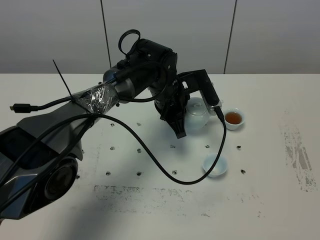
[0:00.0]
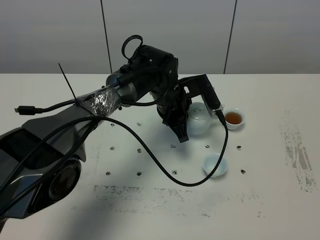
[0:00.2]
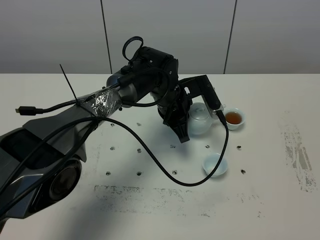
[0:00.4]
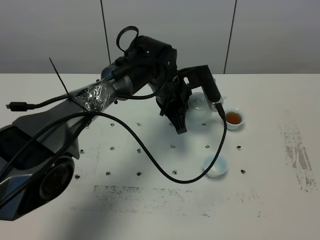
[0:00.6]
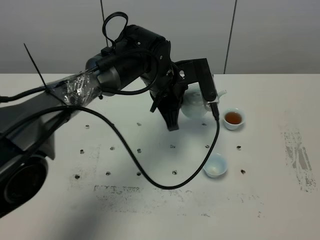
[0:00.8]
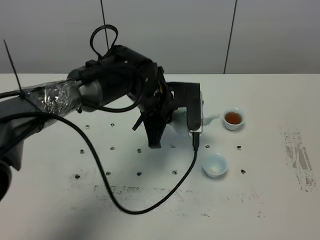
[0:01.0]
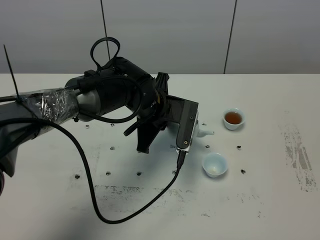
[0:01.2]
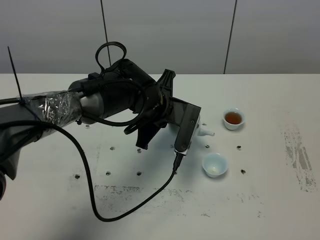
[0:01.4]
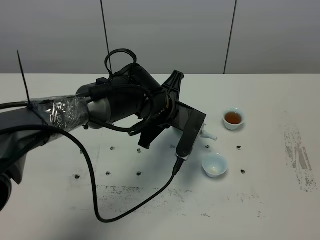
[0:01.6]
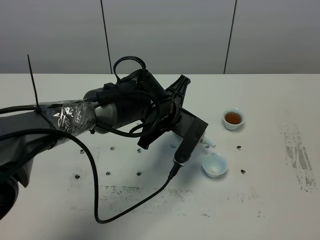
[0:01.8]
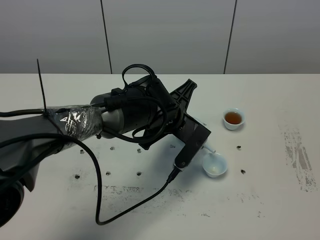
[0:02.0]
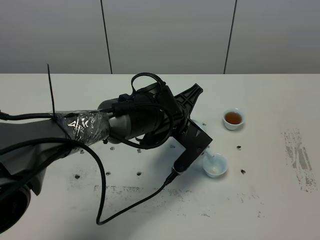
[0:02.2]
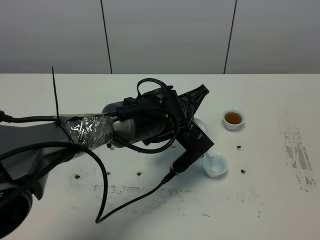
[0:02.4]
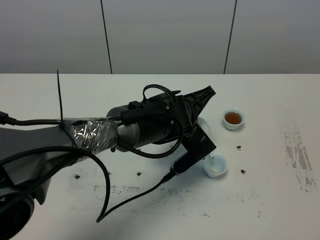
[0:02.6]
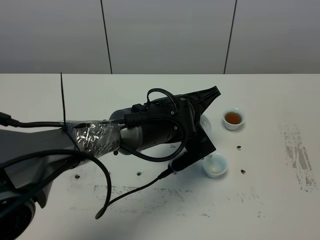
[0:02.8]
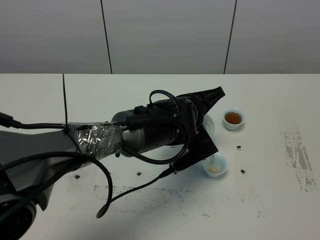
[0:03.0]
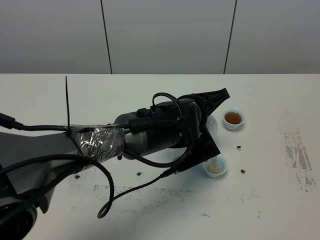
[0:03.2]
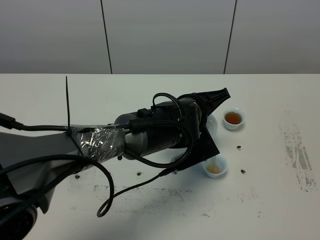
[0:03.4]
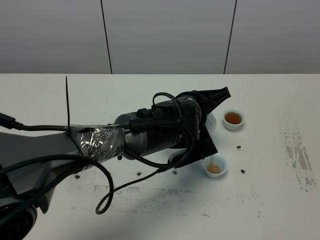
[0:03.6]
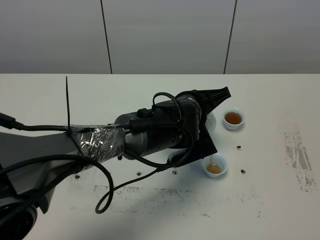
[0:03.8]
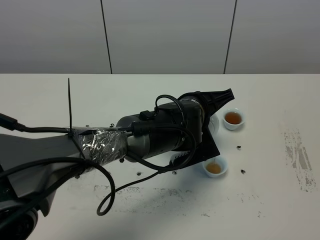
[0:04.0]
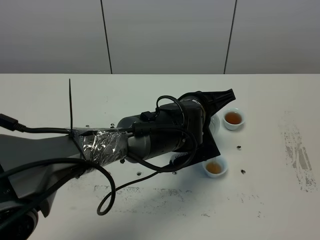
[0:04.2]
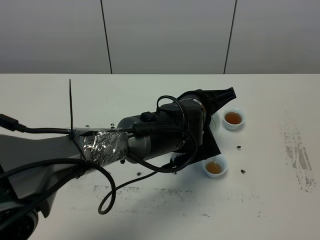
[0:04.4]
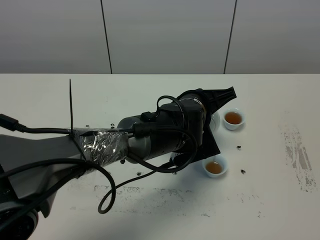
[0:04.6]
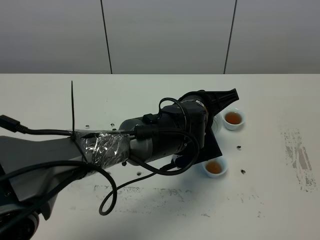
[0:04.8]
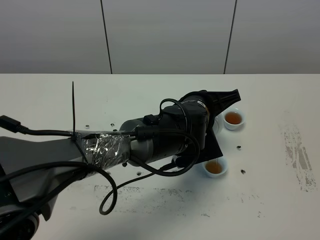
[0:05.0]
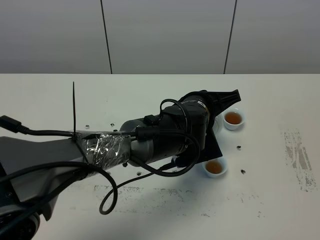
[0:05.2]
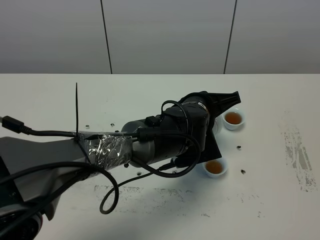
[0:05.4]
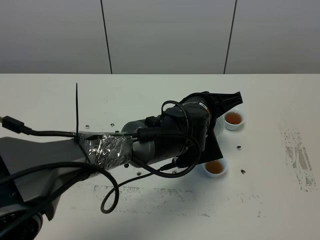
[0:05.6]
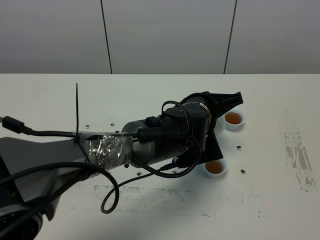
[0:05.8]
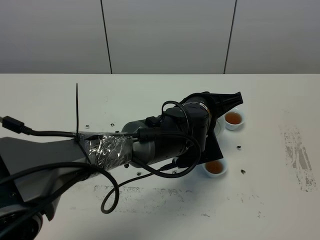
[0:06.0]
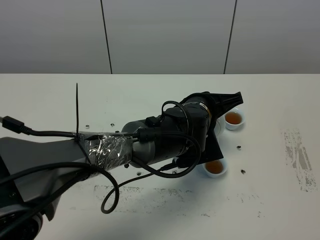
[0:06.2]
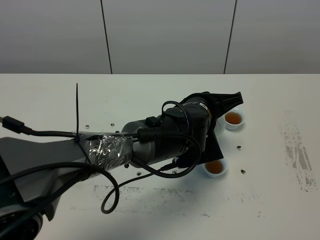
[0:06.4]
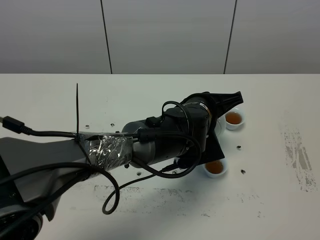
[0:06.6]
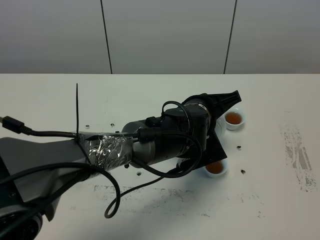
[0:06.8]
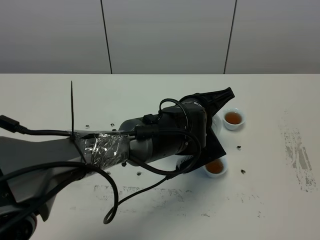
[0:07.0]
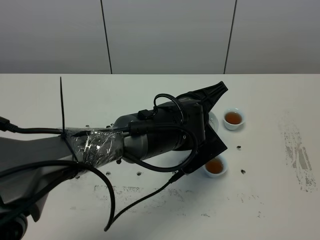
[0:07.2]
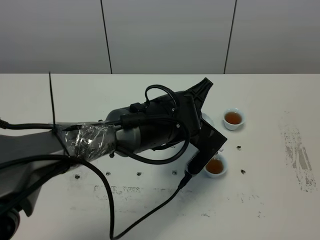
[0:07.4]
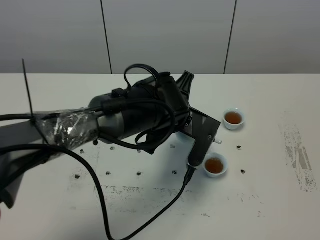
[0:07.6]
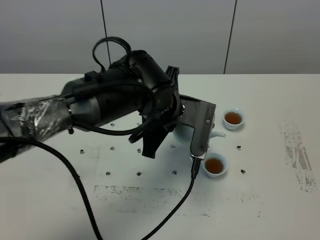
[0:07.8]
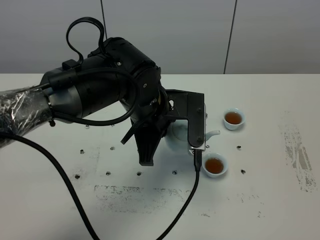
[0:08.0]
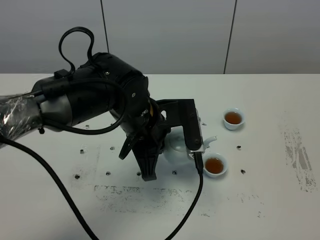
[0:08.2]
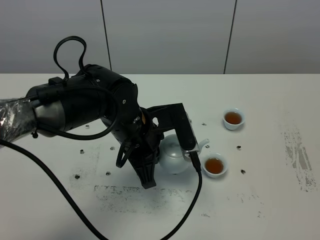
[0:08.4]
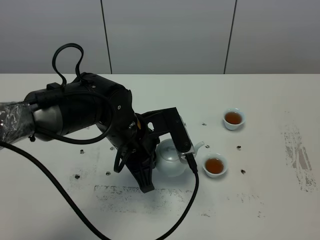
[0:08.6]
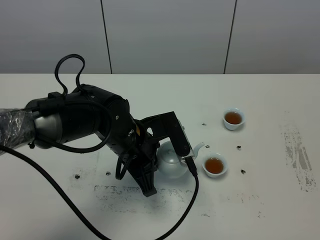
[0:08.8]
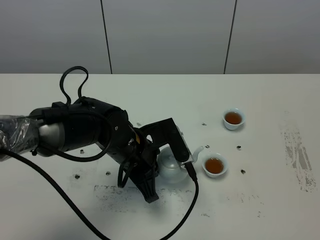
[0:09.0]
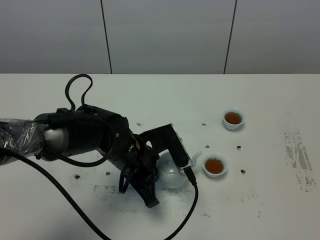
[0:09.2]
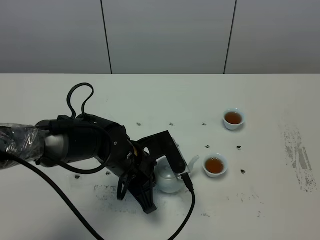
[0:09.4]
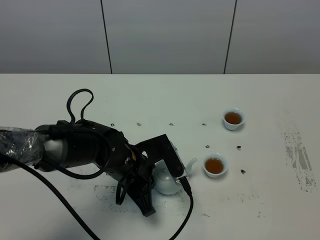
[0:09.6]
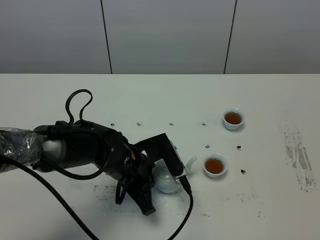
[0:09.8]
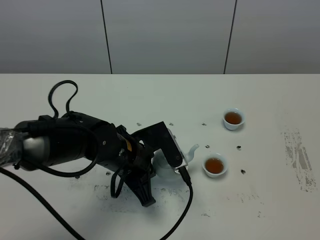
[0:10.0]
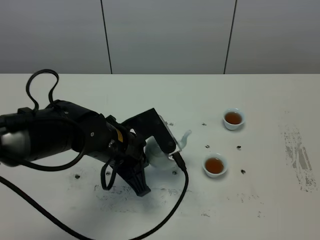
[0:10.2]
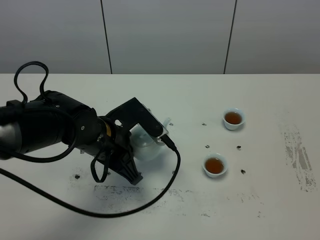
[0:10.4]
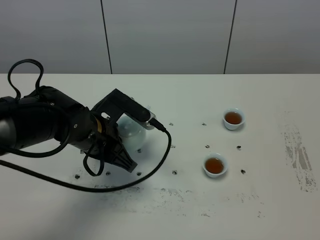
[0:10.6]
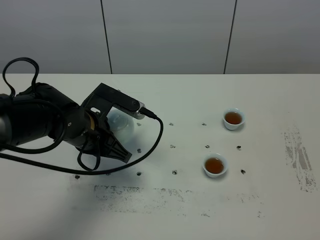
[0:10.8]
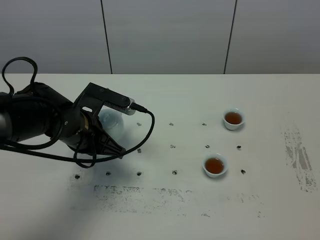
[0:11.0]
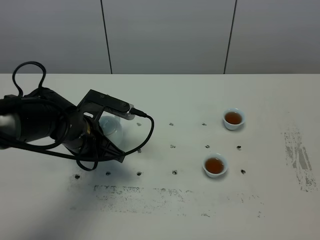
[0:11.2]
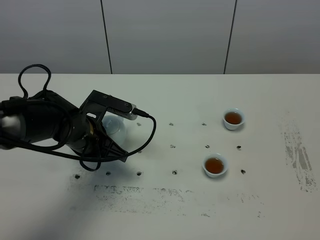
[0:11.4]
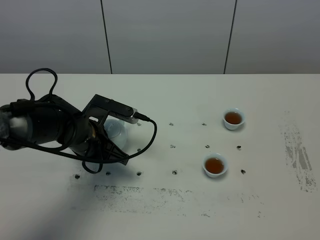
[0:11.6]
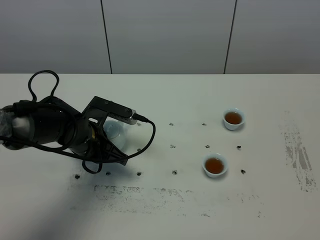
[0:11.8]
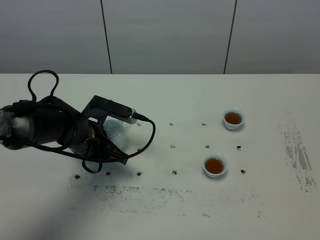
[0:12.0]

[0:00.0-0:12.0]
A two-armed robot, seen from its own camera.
Task of the whole recording: grasp the blue porcelain teapot and pour the tea into the two blue porcelain teacups one by one, put the blue porcelain teapot back in its original place.
Step, 0:00.0 to 0:07.4: Pour tea into the teacup with the left gripper.
0:00.0 to 0:01.6: The left gripper is displaced backward by approximately 5 cm.
0:01.6 to 0:03.0: The left gripper travels to the right by approximately 5 cm.
0:03.0 to 0:04.4: The grippers move only a little.
0:04.4 to 0:06.0: Both grippers stay about where they are.
0:06.0 to 0:07.6: The left gripper is displaced to the left by roughly 5 cm.
0:07.6 to 0:09.0: The left gripper goes approximately 10 cm to the left and downward.
0:09.0 to 0:10.4: The left gripper shifts by roughly 5 cm.
0:10.4 to 0:12.0: The left gripper travels downward by approximately 5 cm.

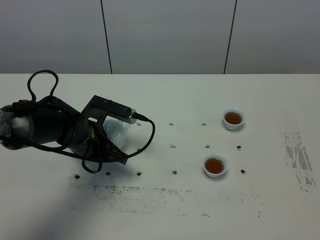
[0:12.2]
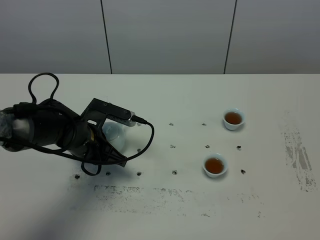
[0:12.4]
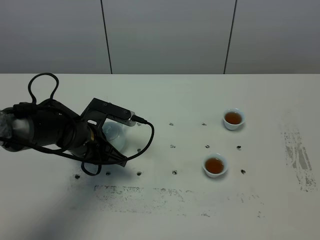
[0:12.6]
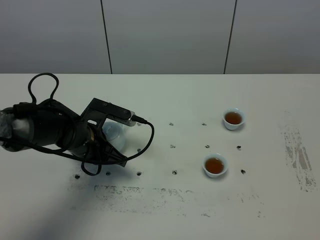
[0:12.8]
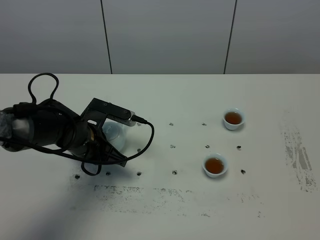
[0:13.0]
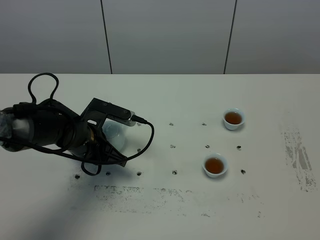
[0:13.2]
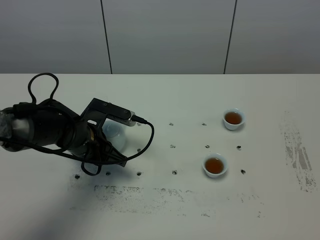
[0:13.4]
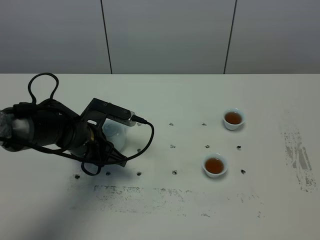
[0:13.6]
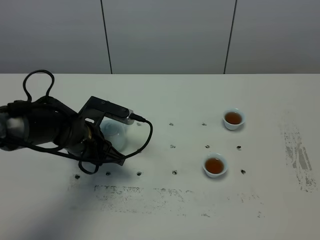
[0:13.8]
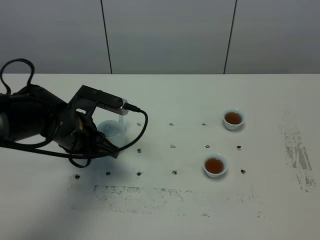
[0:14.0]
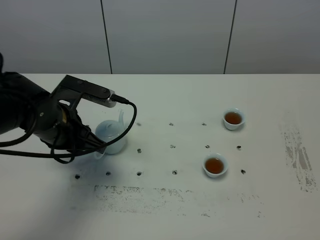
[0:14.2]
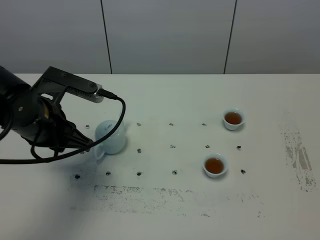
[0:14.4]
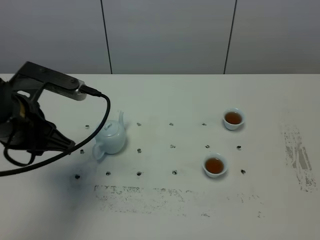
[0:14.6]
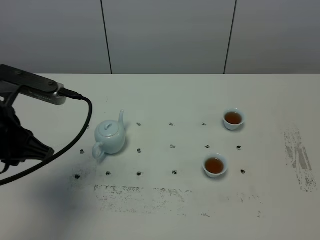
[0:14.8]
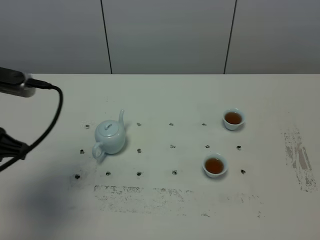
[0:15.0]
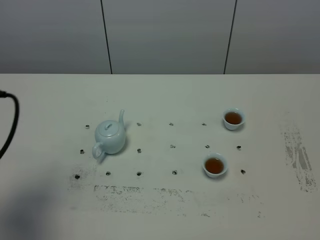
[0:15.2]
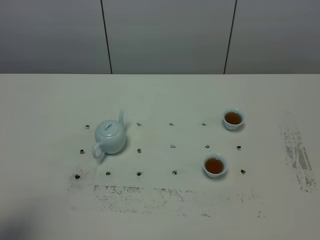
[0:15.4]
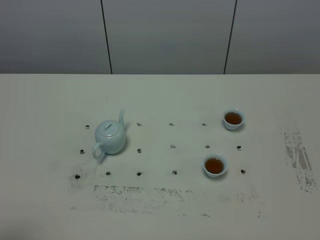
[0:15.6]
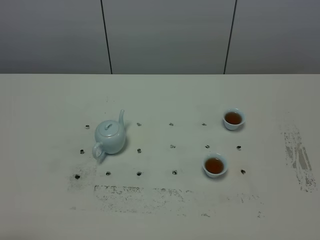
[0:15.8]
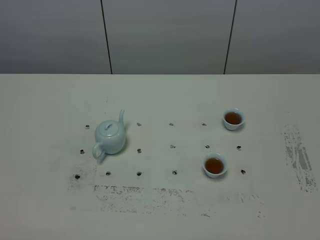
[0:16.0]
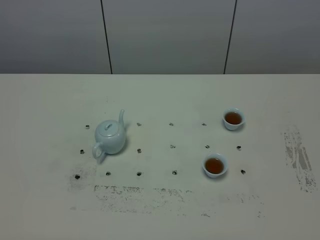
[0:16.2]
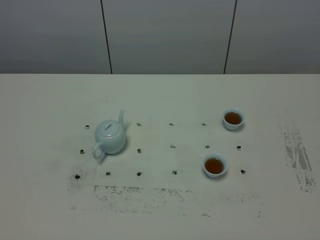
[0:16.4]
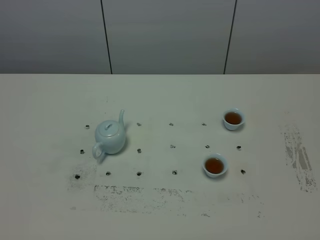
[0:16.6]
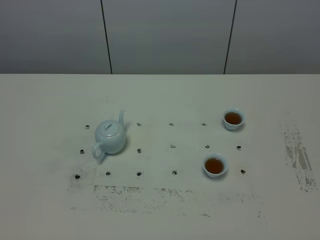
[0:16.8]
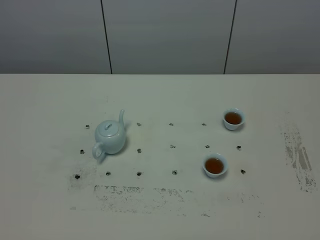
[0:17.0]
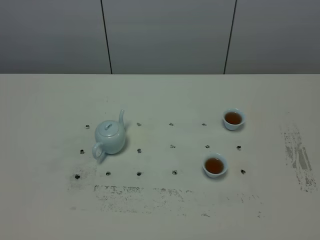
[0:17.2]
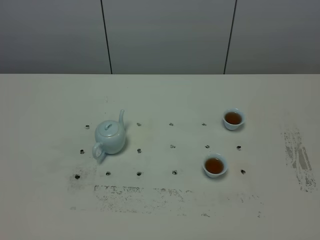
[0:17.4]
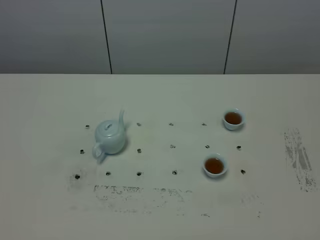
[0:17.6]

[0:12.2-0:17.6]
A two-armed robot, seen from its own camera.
Task of the whole recording: grasp the blue porcelain teapot and pour the tea into the two blue porcelain teacups one by one, put the blue porcelain teapot back in its original place.
0:12.2 to 0:13.6: The left gripper opens.
0:13.6 to 0:15.0: The left gripper shifts about 25 cm upward, backward and to the left.
0:15.0 to 0:16.2: The left gripper shifts approximately 20 cm backward.

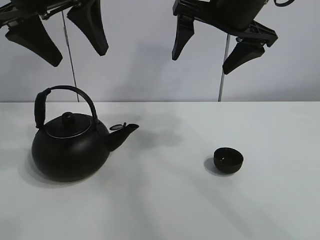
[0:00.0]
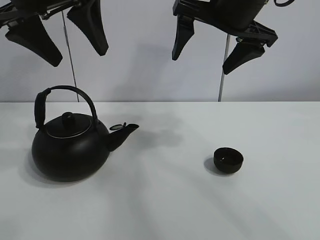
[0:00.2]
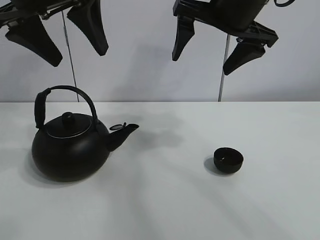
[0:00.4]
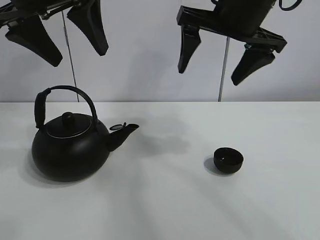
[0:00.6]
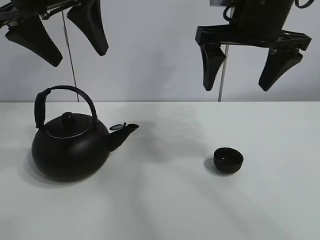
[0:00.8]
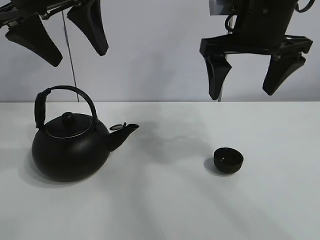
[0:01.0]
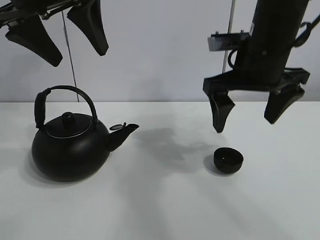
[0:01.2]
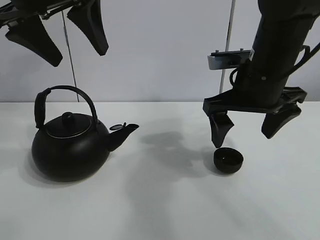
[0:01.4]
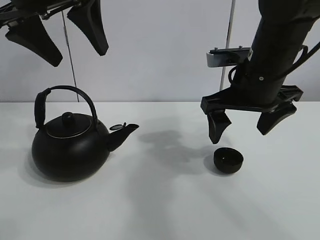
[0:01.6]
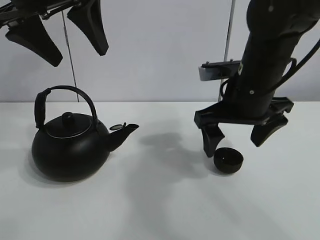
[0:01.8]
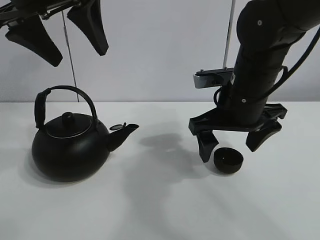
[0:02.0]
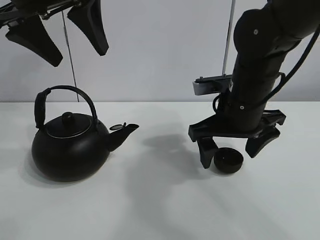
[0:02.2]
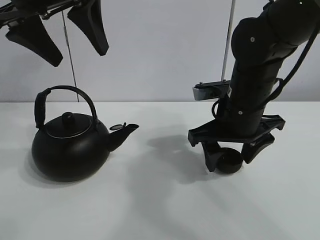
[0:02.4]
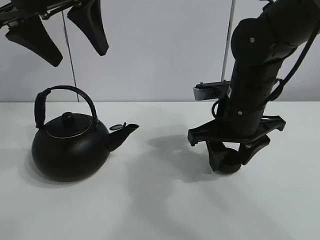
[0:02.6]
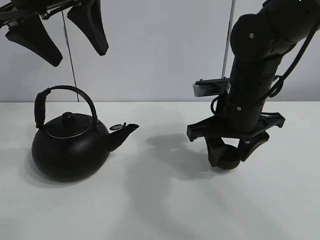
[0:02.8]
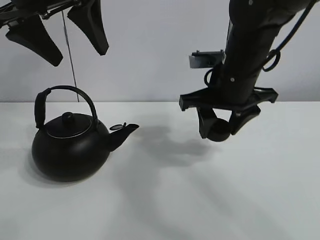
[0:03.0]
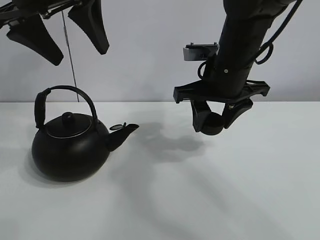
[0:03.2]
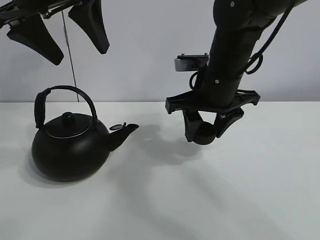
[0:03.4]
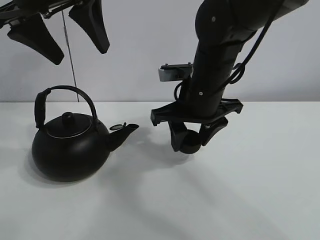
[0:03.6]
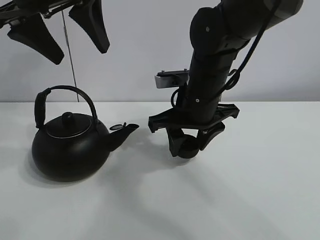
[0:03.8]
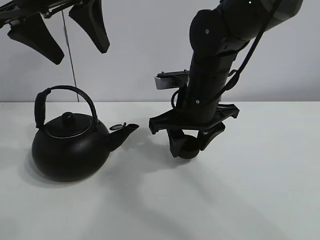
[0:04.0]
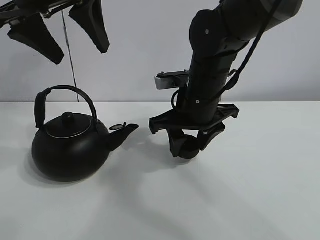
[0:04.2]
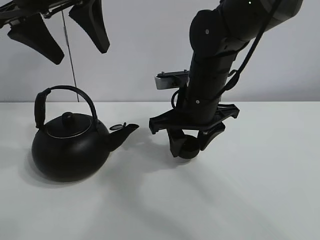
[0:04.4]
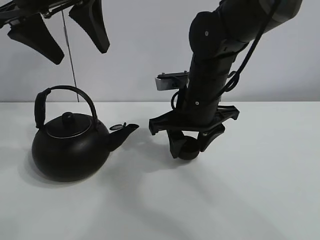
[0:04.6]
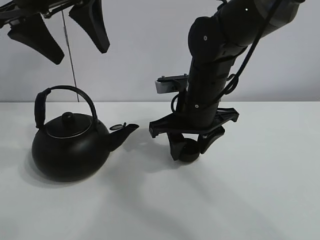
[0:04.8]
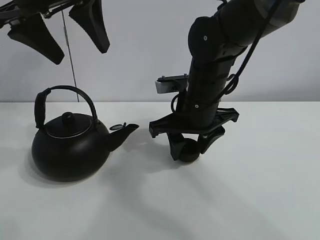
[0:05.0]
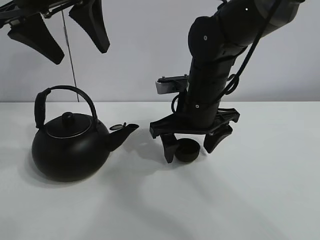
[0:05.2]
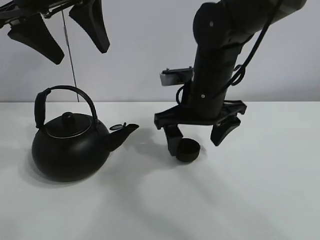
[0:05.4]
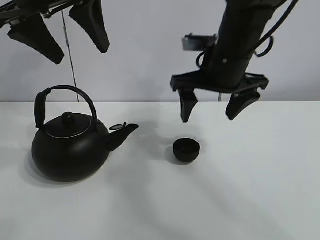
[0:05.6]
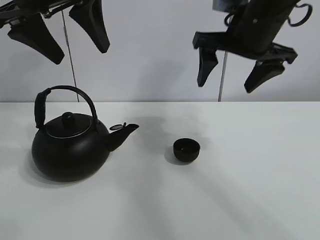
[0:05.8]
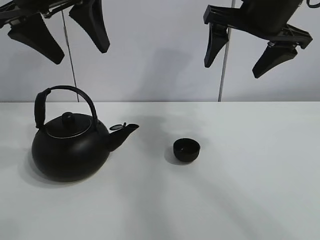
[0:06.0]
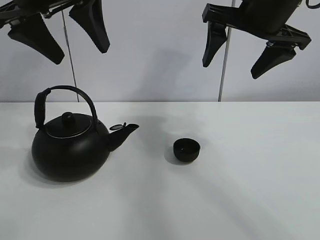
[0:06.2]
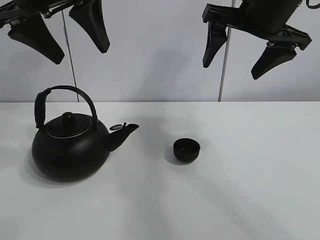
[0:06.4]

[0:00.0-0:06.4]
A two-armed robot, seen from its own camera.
Task of the whole recording: pour tea into the teacup.
Step, 0:00.0 to 0:02.6: Pick up the teacup with the right gripper.
Step, 0:02.8 to 0:05.2: Place the teacup in the center of view with the right gripper.
0:01.6 to 0:03.2: The right gripper closes up.
0:03.2 to 0:04.8: The right gripper travels downward by about 5 cm.
0:04.8 to 0:06.4: The right gripper is displaced upward and to the right by some 20 cm, and opens up.
